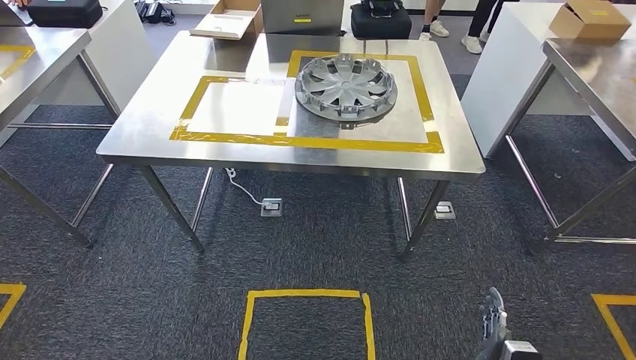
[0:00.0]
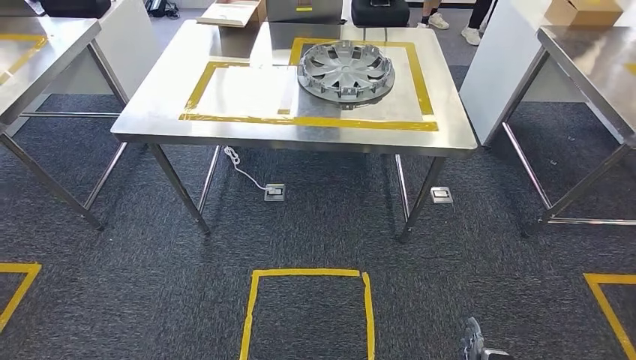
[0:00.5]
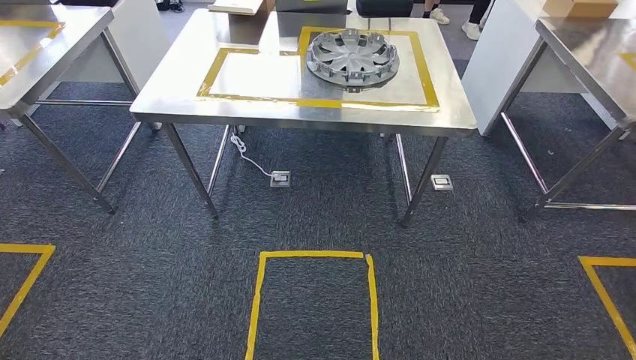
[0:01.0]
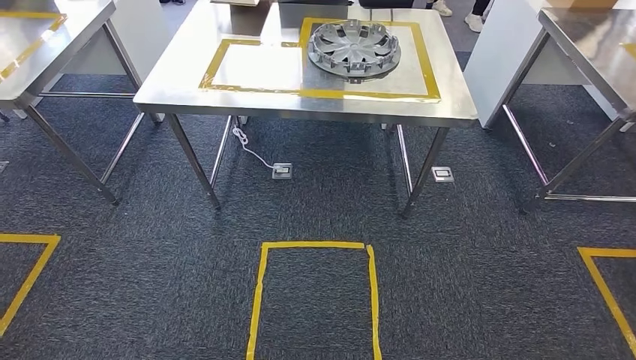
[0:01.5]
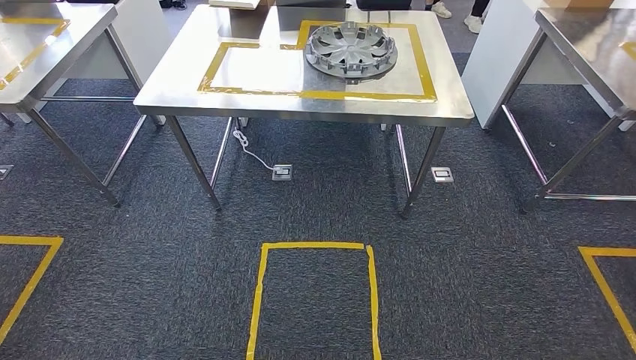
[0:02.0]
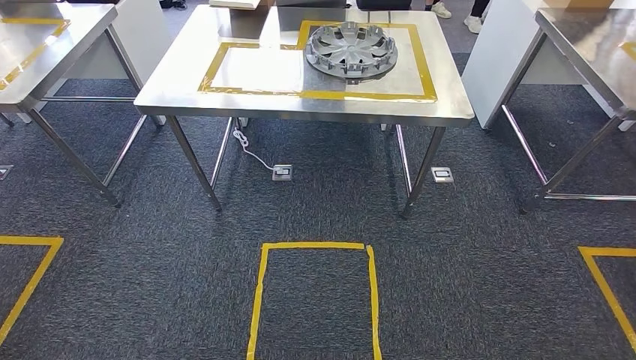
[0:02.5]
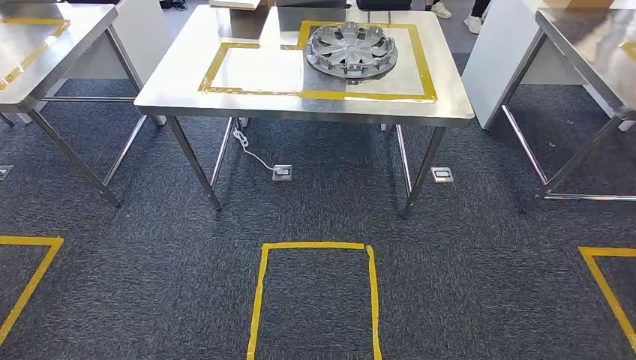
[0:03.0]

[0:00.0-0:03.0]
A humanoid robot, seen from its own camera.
Step, 0:00.0 to 0:02.5: Move to the initial position at the workbench.
0:01.5 to 0:03.0: The hands make only small movements.
